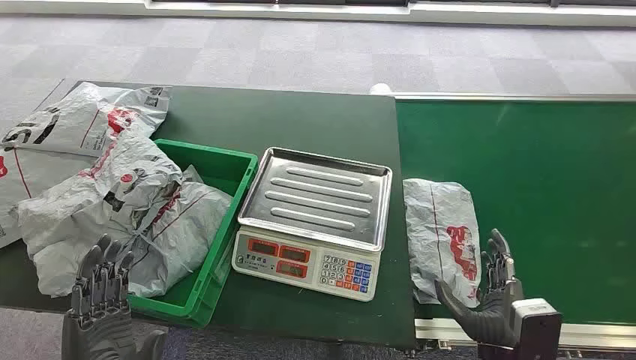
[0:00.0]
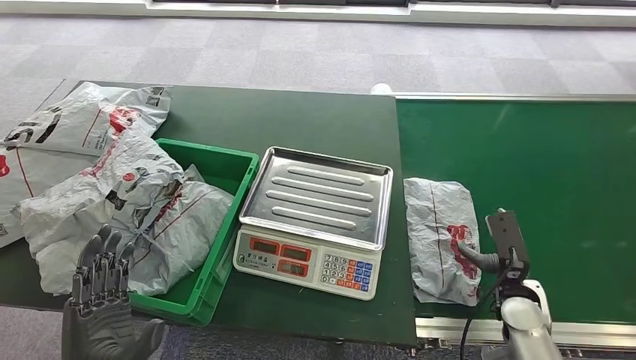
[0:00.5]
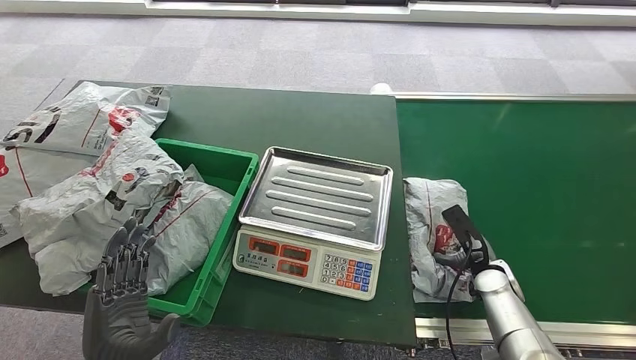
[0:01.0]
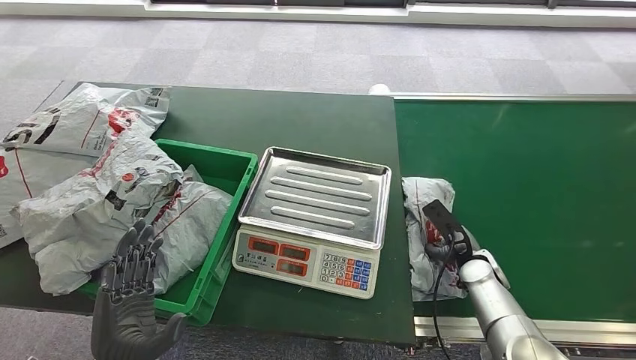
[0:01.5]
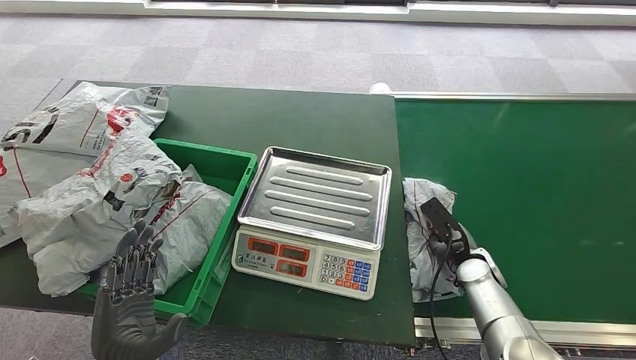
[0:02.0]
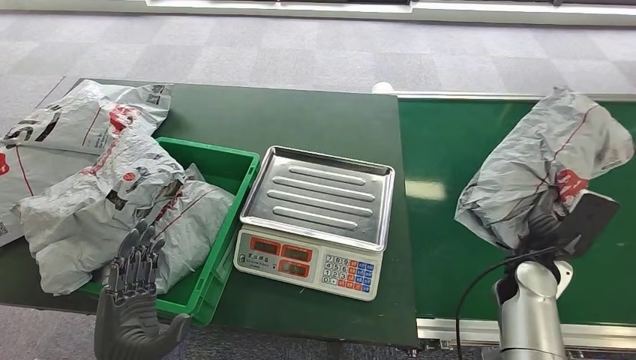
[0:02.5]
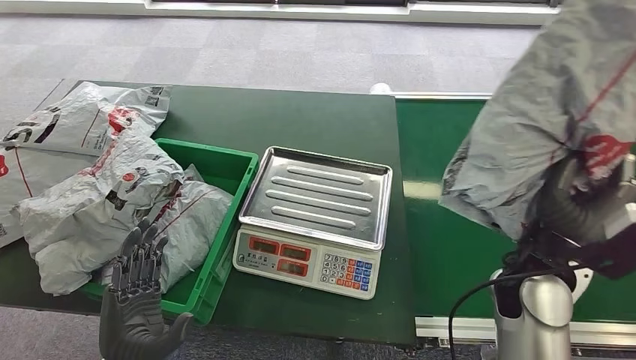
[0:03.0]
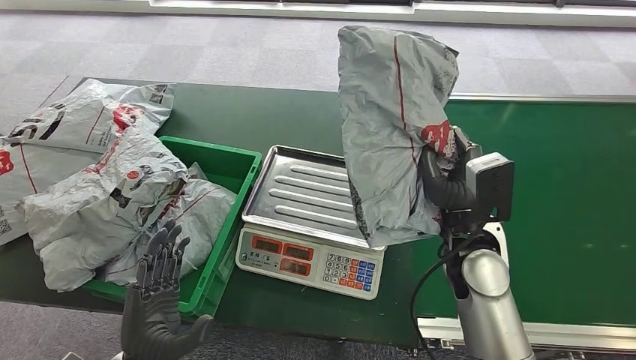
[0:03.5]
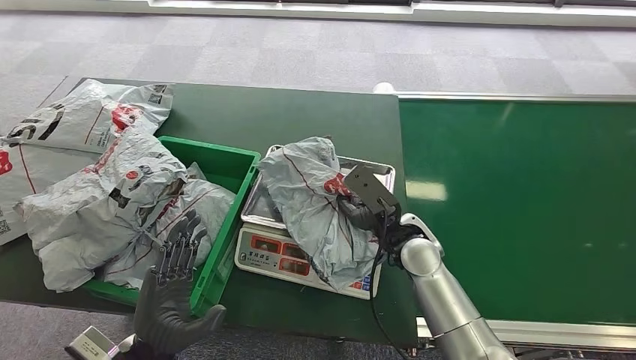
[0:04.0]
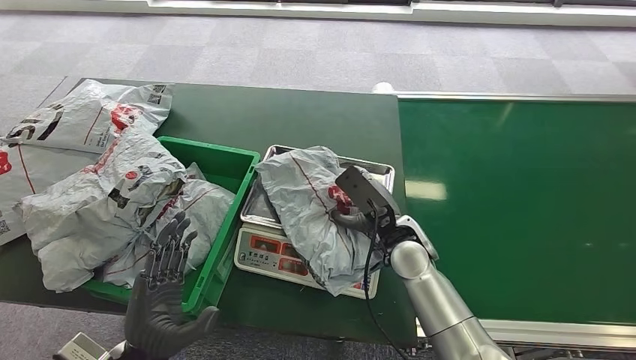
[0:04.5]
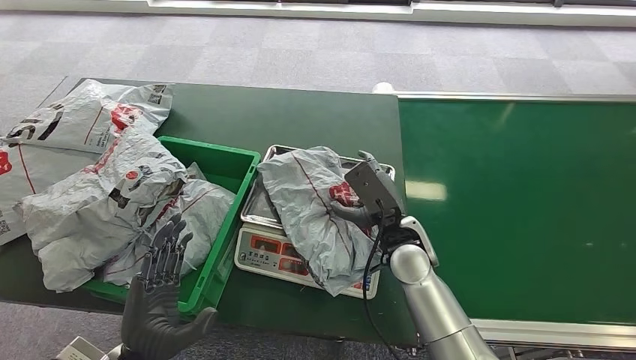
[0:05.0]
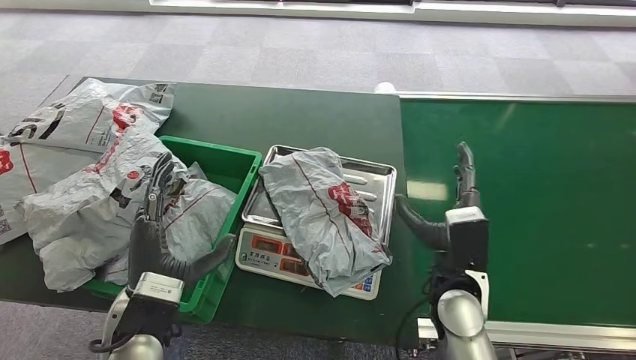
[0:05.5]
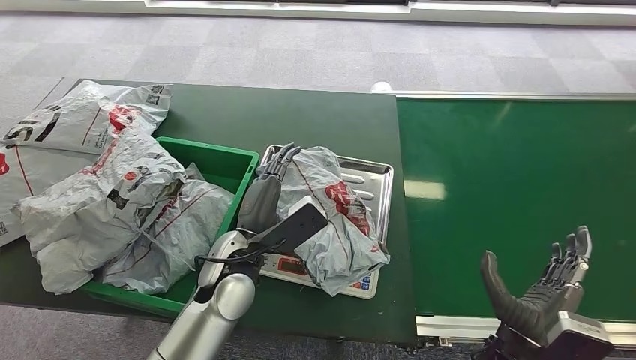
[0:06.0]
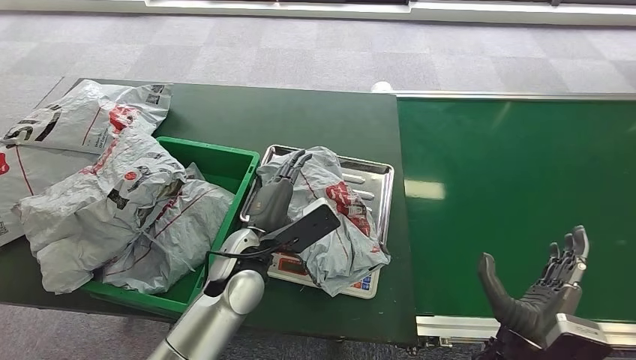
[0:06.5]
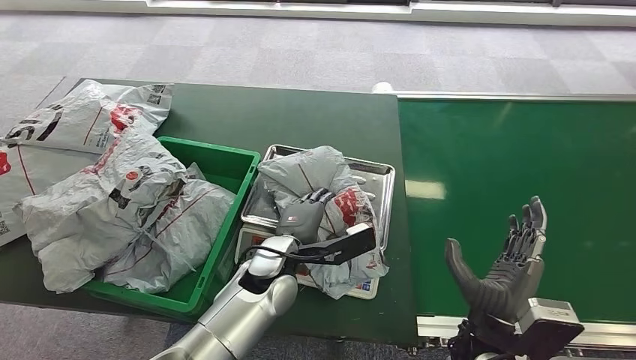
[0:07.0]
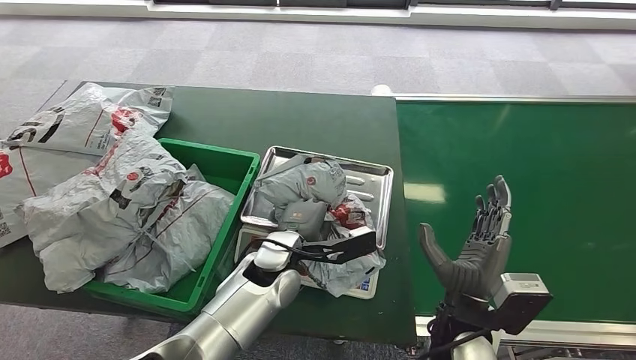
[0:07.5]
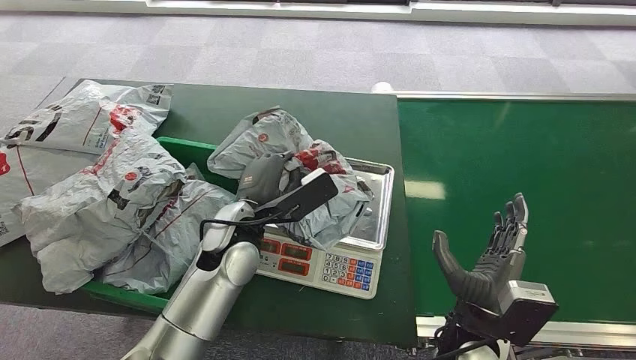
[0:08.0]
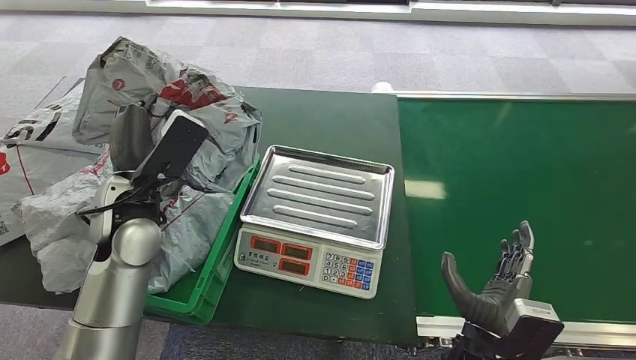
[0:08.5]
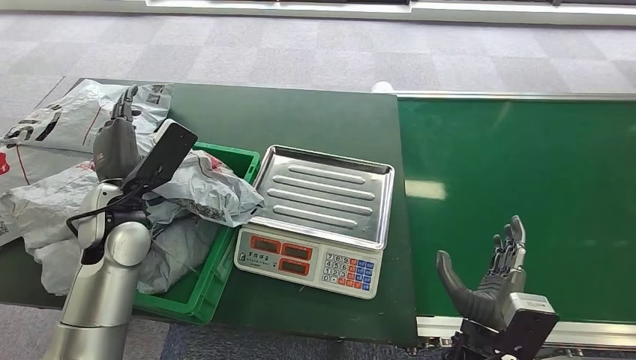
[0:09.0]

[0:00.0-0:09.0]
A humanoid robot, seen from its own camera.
Step, 0:00.0 to 0:02.5: Pick up the package from the conveyor belt.
Step, 0:03.0 to 0:04.0: Place the package onto the inbound machine.
Step, 0:04.5 to 0:07.5: Pick up the package from the inbound machine.
Step, 0:08.5 to 0:09.0: Place the package into the parcel locker.
0:04.5 to 0:07.0: The right hand travels backward and to the right by roughly 20 cm. The left hand shifts approximately 25 cm to the right and forward.
